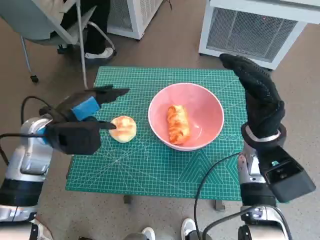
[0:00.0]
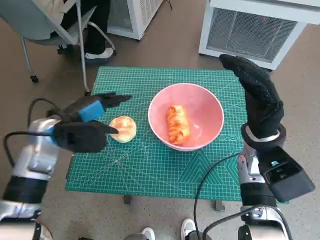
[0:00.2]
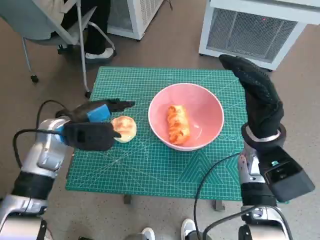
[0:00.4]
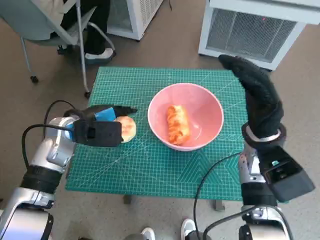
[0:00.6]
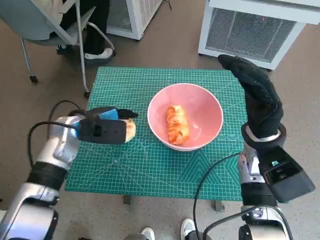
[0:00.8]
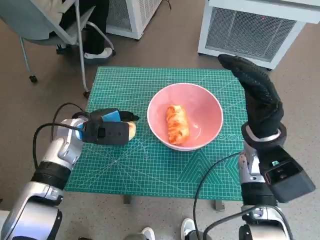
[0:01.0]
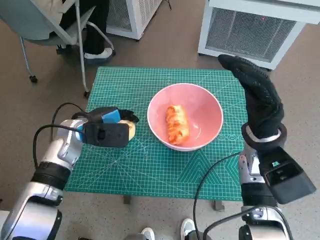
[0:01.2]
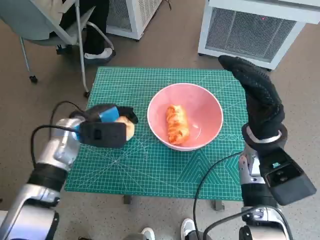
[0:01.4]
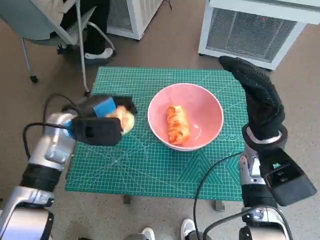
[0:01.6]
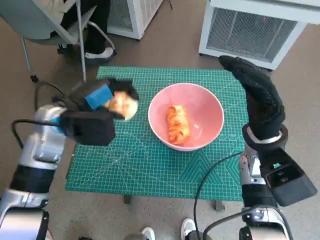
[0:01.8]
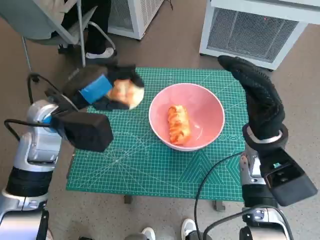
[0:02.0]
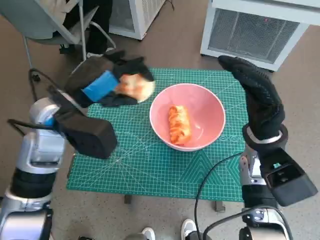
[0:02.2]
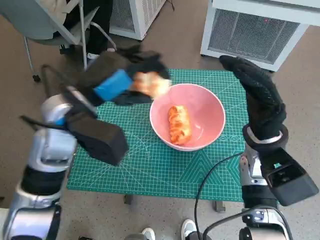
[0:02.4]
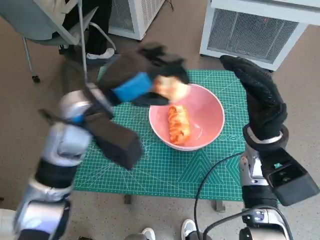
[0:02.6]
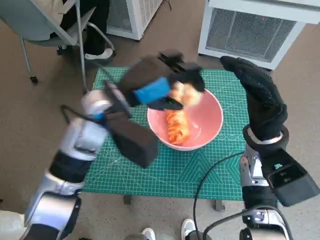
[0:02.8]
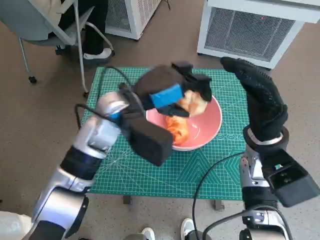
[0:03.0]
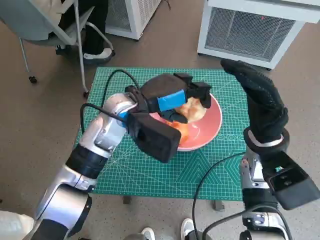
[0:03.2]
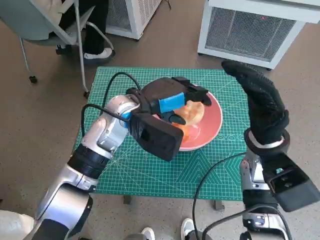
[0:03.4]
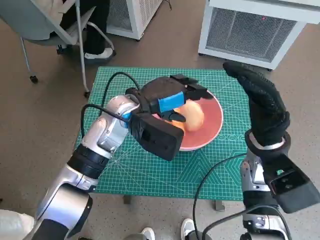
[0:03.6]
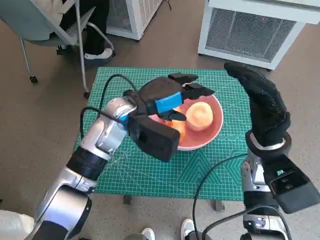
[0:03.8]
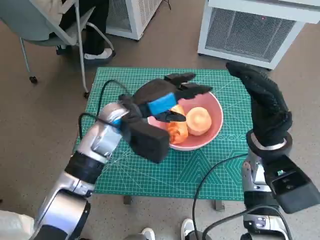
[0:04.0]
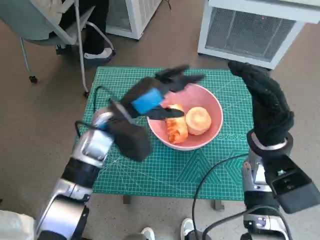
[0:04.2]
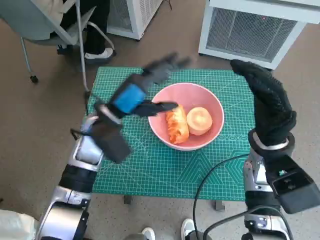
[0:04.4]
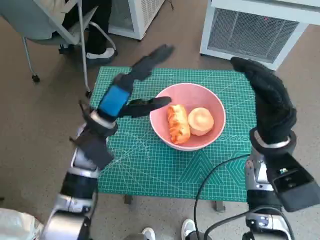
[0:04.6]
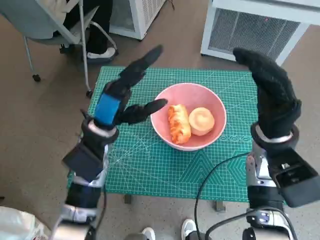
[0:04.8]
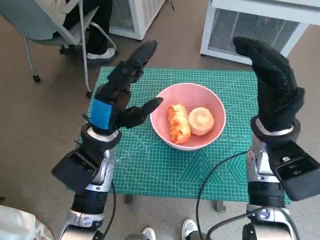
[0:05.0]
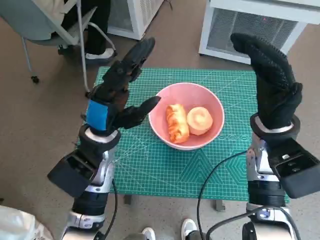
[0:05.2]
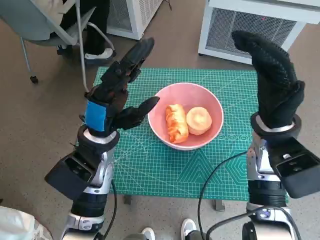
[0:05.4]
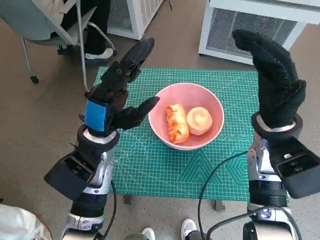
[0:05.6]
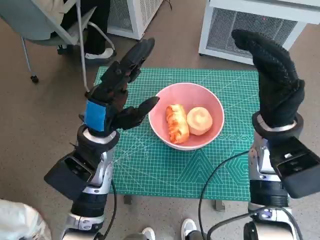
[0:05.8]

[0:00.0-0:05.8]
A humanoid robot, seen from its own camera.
Task of the whole recording: Push the bowl to the center of the table and put the bread into the bowl.
Step, 0:01.4 to 0:04.0: Place the round bread in pink bowl with left hand.
0:00.0 to 0:01.4: The left hand moves downward, roughly 5 cm.
0:01.4 to 0:02.8: The left hand heads upward and to the right, covering about 15 cm.
0:02.8 to 0:04.4: The left hand is displaced downward by roughly 5 cm.
